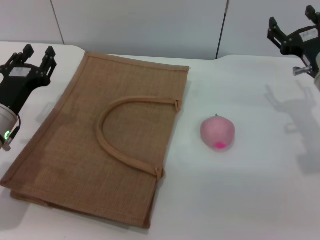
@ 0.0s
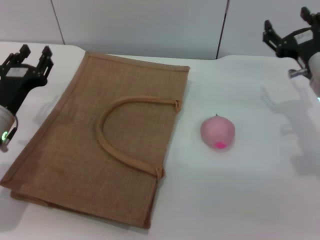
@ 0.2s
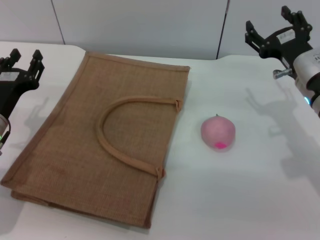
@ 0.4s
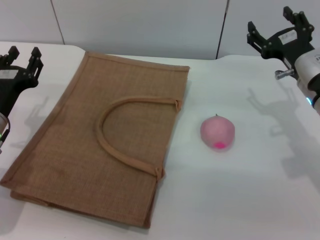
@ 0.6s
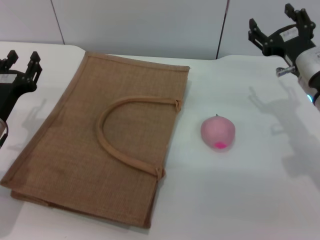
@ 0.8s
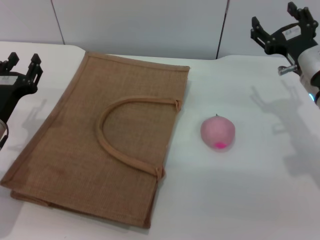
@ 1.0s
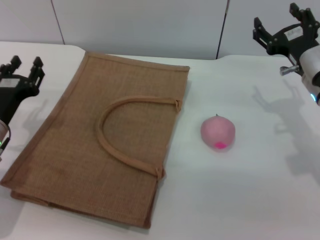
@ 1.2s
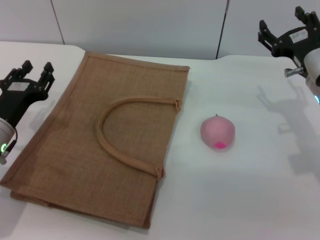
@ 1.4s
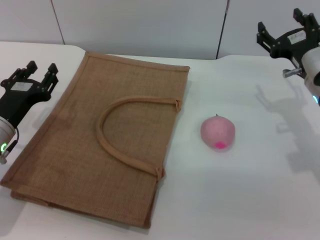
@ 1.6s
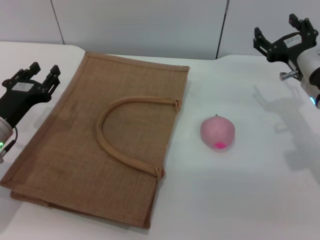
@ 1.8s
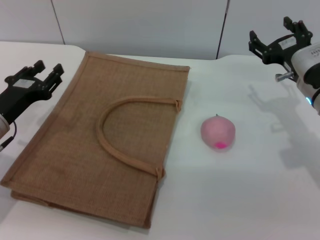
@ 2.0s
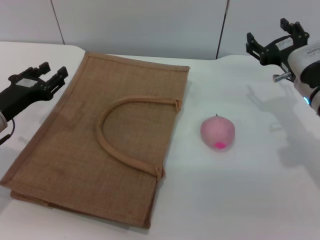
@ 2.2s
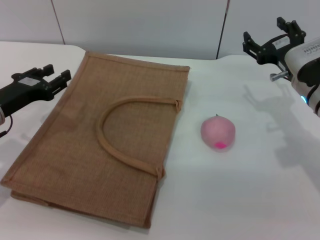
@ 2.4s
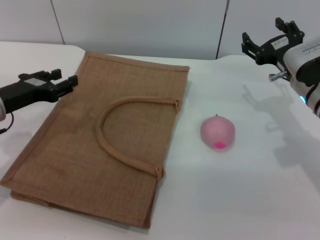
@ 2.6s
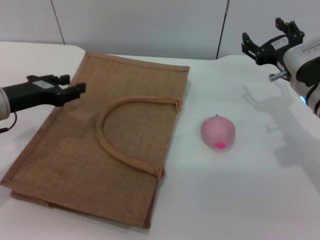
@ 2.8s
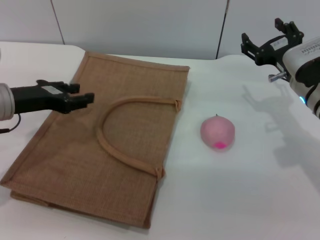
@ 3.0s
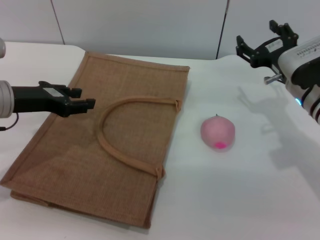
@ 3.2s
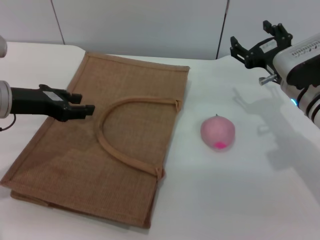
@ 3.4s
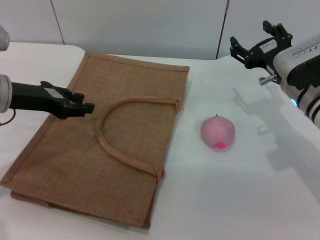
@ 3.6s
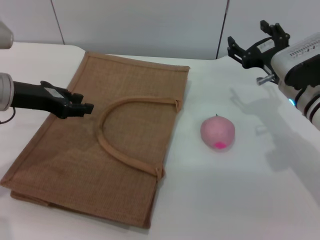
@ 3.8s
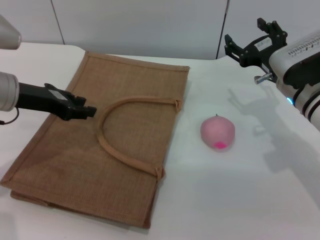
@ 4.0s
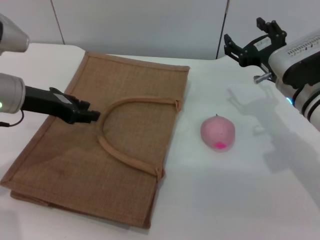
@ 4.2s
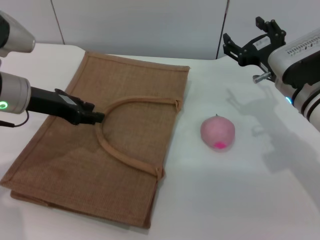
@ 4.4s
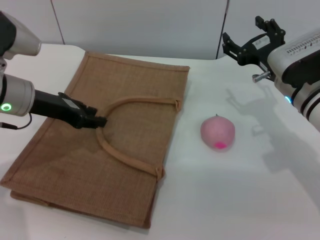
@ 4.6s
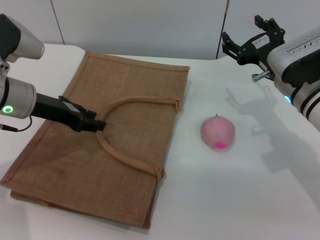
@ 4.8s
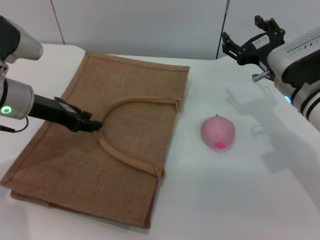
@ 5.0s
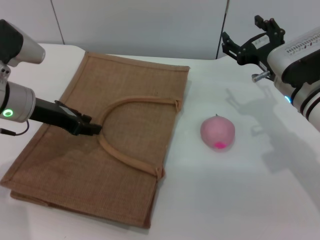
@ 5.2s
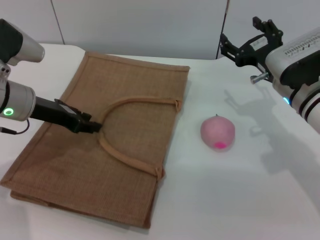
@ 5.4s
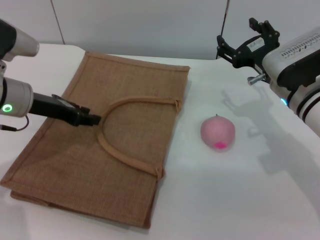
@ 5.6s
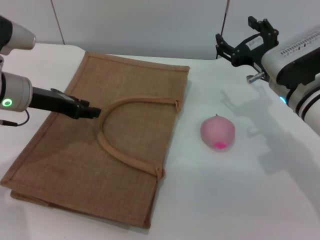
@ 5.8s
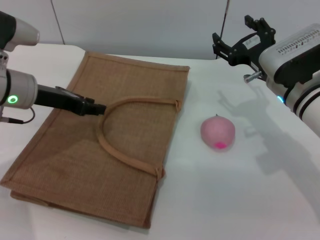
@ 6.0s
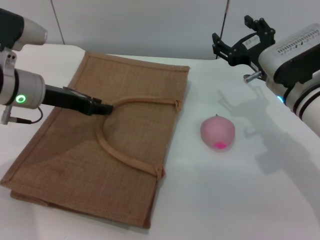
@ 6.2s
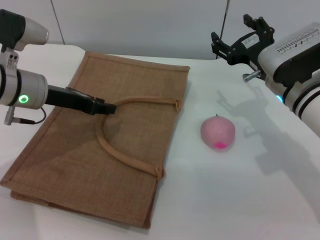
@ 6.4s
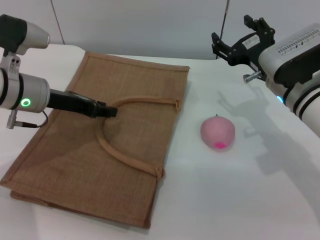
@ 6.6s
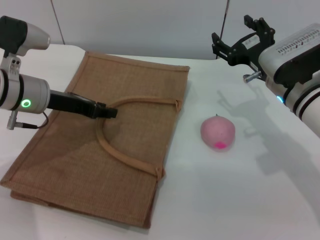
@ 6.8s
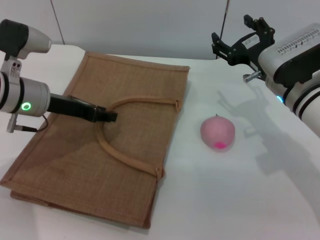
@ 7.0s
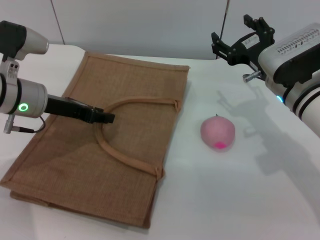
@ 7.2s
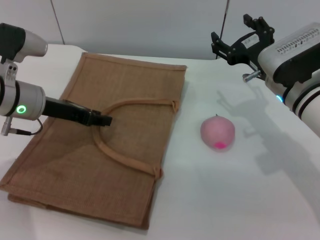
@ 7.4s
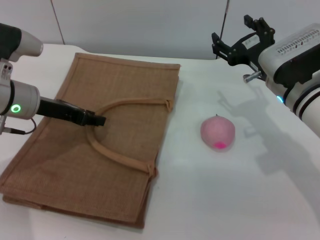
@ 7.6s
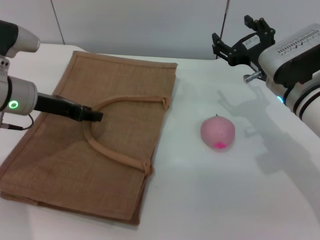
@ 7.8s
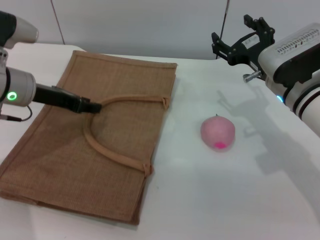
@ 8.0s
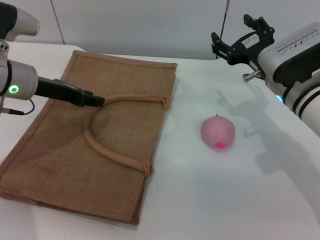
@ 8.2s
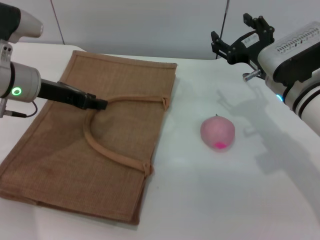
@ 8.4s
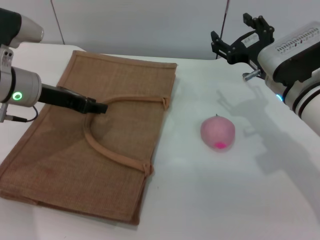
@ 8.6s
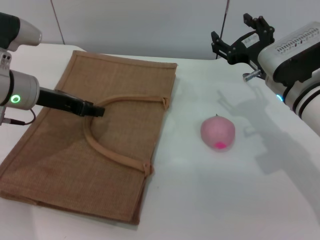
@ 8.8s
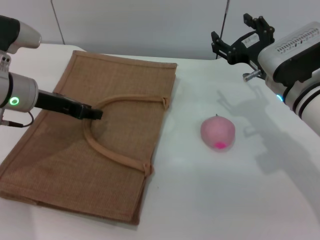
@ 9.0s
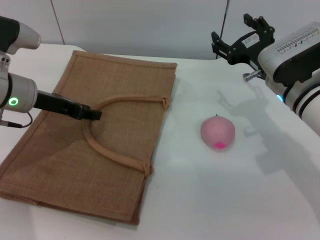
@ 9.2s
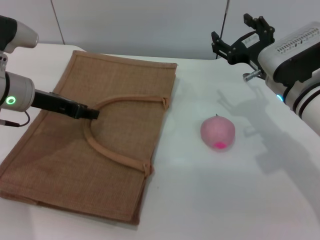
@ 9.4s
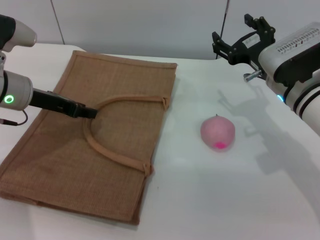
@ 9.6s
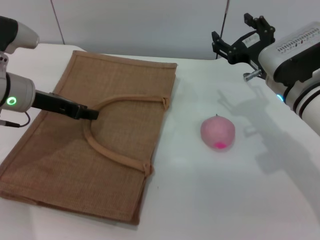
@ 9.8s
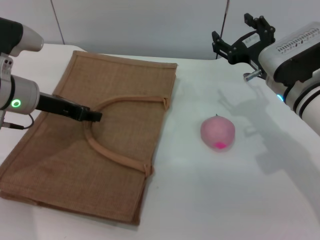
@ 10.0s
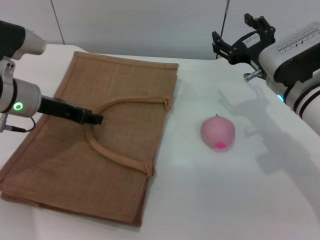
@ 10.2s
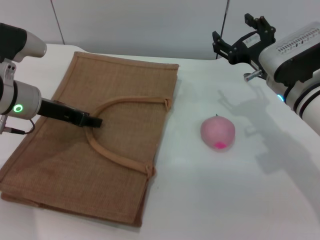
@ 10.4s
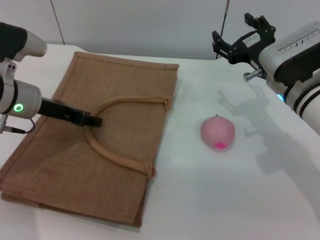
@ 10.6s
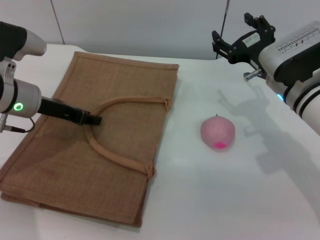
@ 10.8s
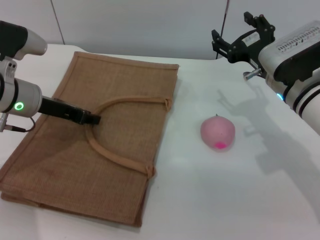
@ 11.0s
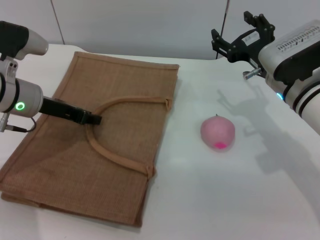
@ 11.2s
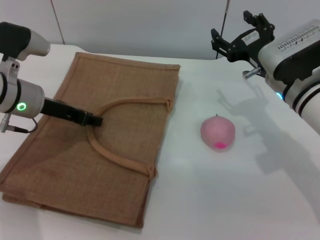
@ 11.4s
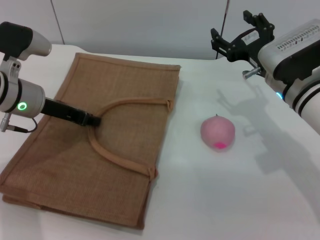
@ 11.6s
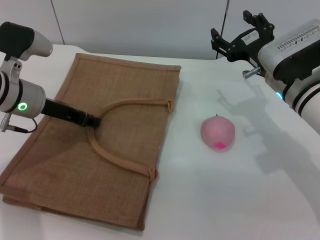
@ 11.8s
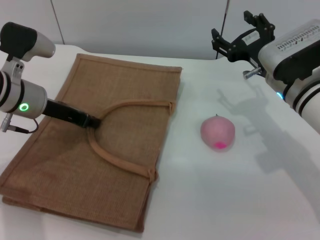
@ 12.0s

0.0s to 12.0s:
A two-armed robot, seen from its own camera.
Task of the whole recording: pick up the peach from the table and place it in the brown handbag.
0.0s to 1.6s: The grippers move only a little.
1.6s to 3.0s: The left gripper shifts about 5 cm upward.
3.0s to 4.4s: The grippers make only small movements.
4.4s to 9.0s: The grippers stay close to where they were, moving slightly.
9.0s to 10.4s: The two grippers keep their place.
10.4s to 12.0s: The left gripper closes its fingers.

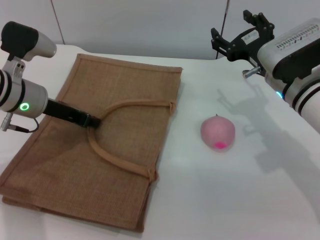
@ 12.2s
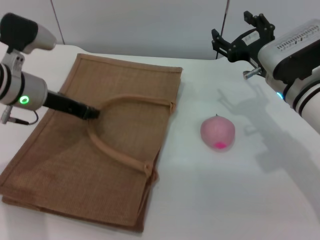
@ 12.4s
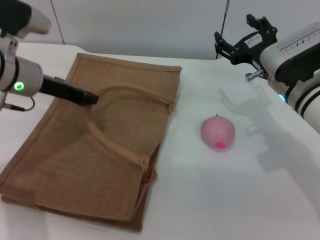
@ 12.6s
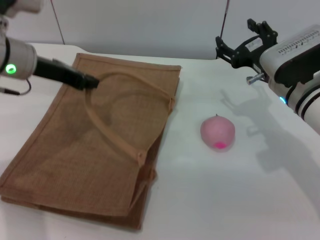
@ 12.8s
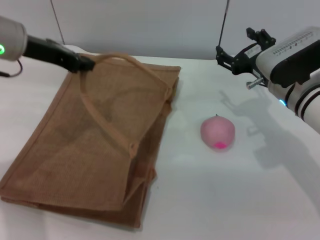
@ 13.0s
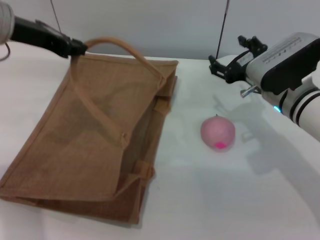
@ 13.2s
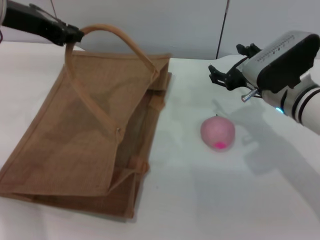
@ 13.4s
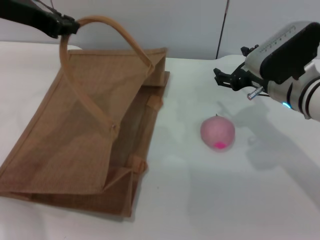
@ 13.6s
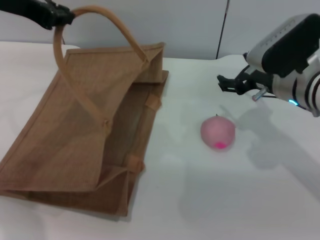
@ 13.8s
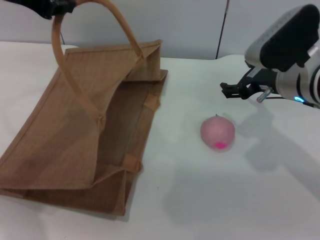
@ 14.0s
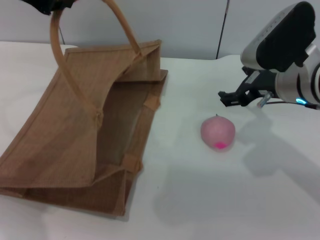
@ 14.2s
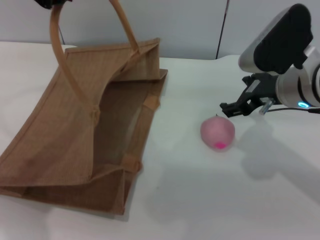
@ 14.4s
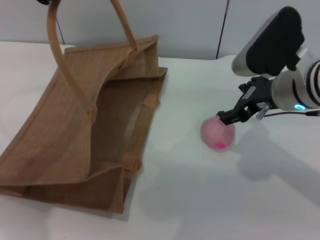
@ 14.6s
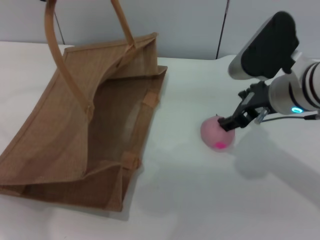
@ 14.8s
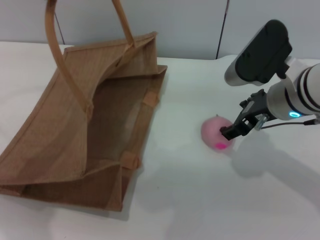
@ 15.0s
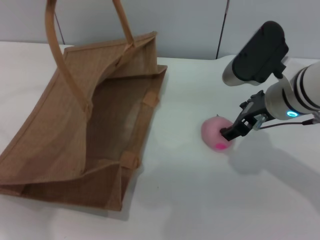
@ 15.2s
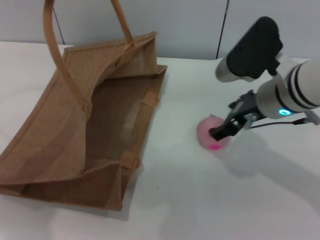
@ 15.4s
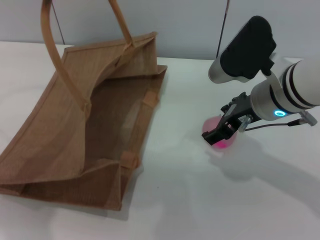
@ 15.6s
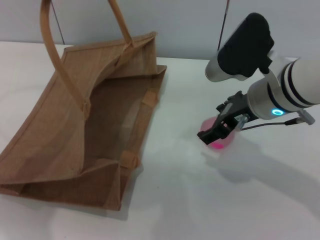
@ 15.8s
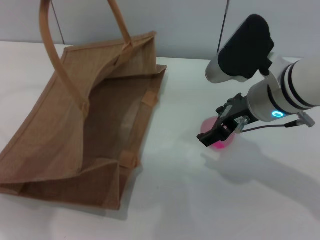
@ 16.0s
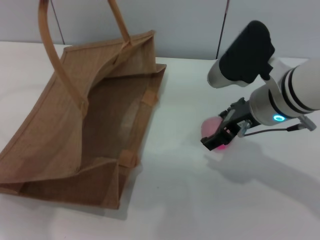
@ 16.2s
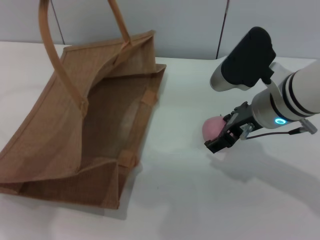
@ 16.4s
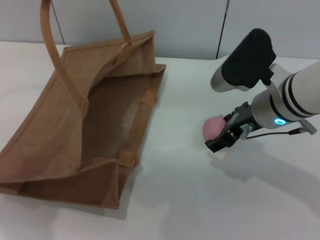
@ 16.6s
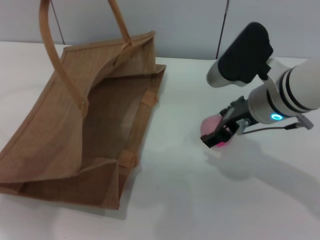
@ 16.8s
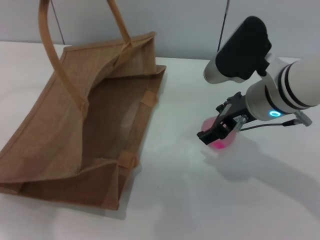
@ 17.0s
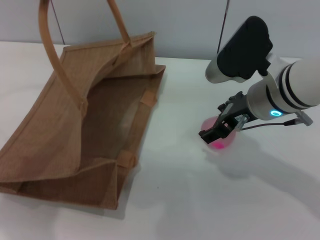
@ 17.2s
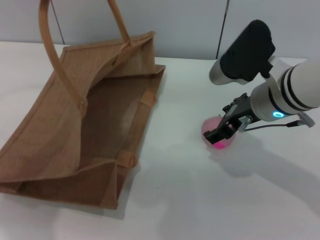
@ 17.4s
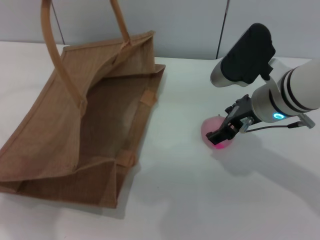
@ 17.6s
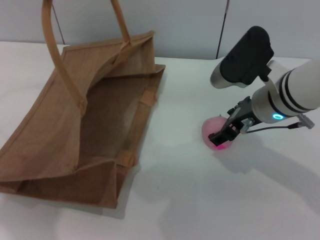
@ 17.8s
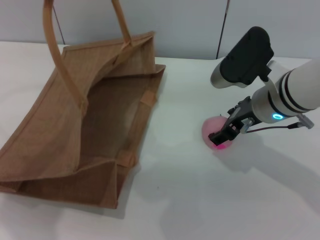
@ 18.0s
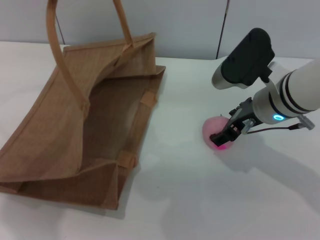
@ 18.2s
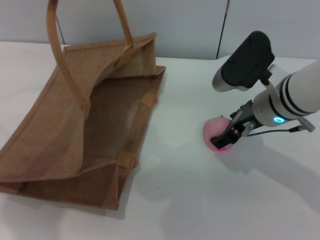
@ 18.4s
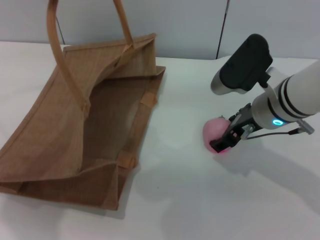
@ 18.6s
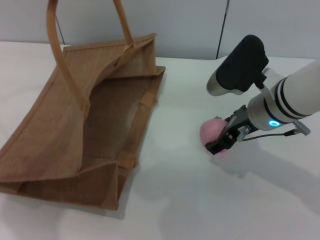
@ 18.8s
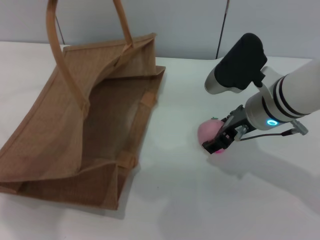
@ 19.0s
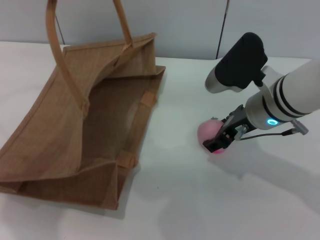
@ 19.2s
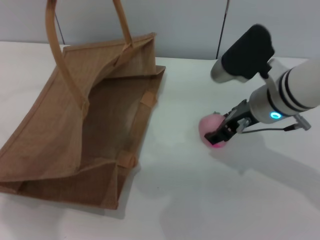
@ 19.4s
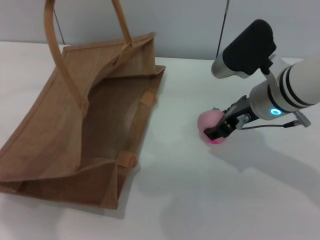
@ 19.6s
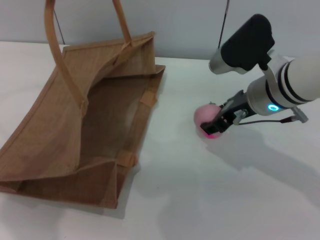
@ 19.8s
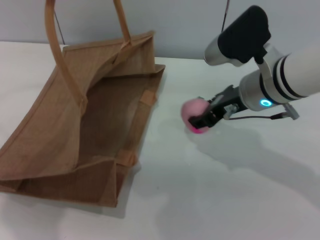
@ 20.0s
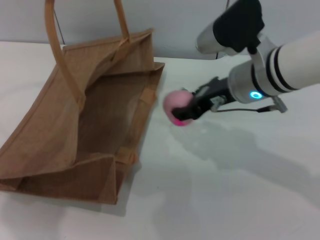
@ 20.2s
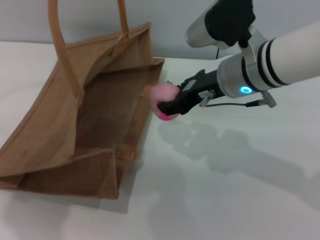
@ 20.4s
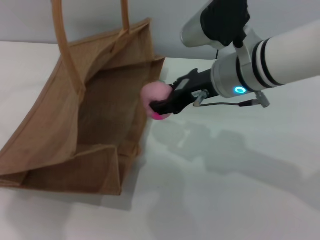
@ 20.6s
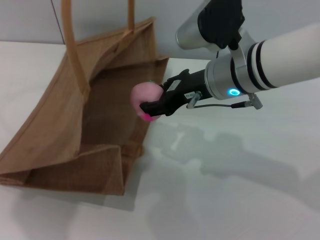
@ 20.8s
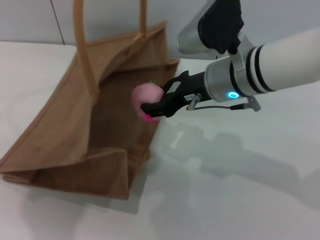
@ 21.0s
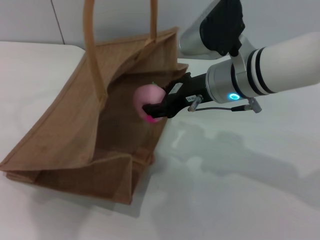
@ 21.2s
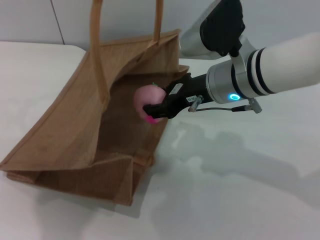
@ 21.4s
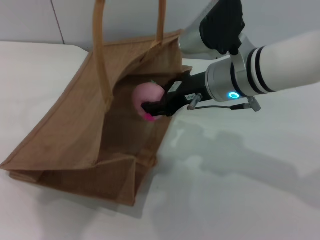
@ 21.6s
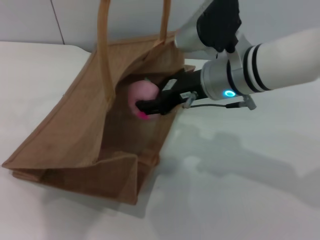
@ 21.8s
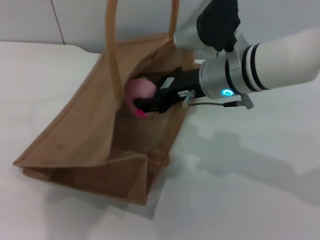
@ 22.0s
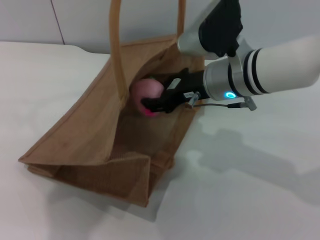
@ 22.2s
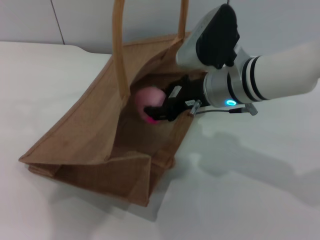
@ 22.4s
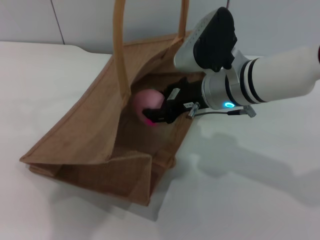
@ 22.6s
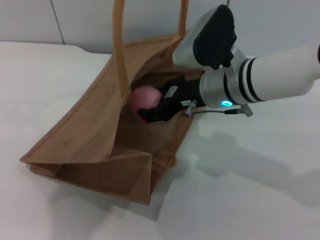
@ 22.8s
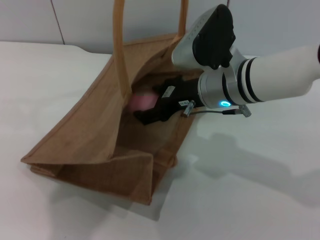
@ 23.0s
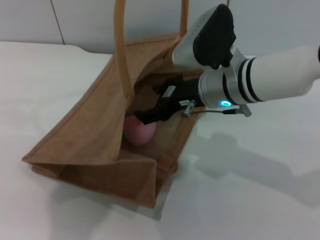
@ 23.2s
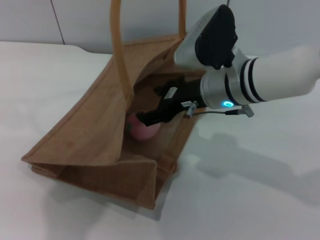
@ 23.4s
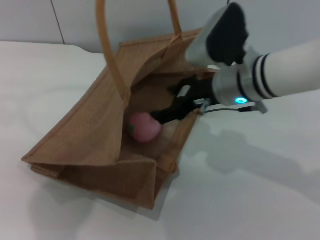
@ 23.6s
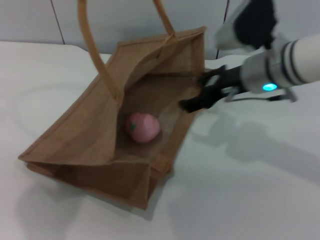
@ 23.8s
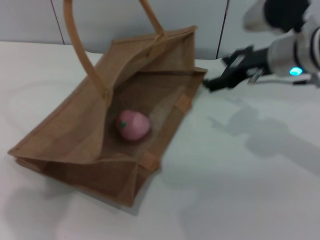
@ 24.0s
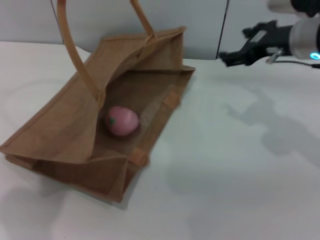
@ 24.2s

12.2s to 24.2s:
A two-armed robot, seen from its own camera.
Task of the whole recording: pick up the peach from the table and place it in the brown handbag.
Step, 13.0s to 20.0s: Pick up the peach with the right gripper.
Step, 20.2s to 23.8s: Place the peach into the woven bag with the right gripper.
12.2s to 13.8s: The left gripper moves upward, roughly 20 cm.
13.8s to 15.2s: The left gripper moves some 5 cm.
15.2s to 18.2s: The grippers make only small movements.
18.2s to 19.8s: The right gripper closes up.
19.8s to 21.2s: The left gripper moves about 5 cm.
22.6s to 24.2s: The left gripper goes some 10 cm to the left, while the right gripper shifts some 10 cm to the right and upward, and opens up.
